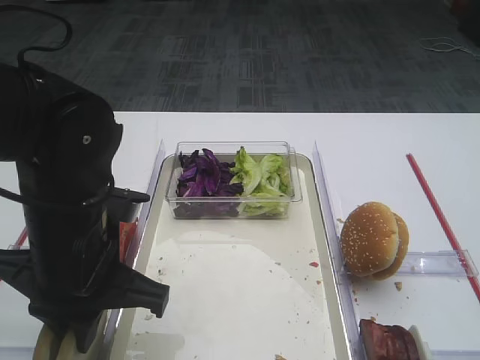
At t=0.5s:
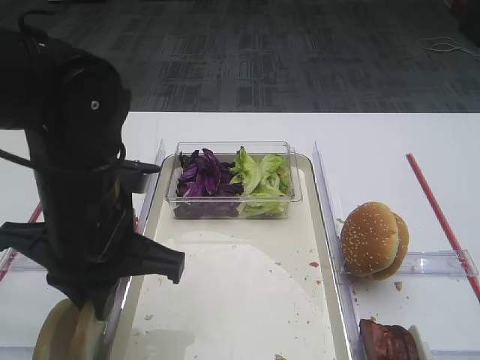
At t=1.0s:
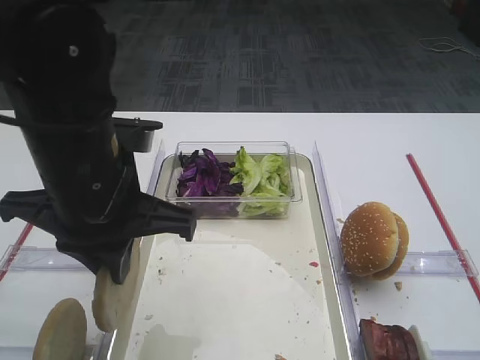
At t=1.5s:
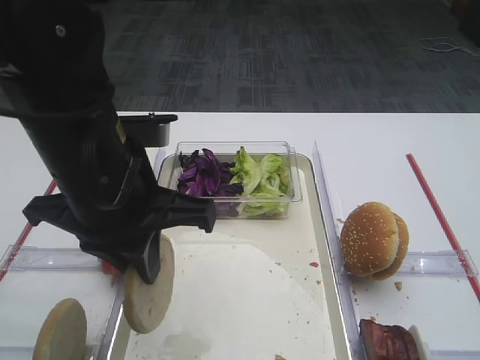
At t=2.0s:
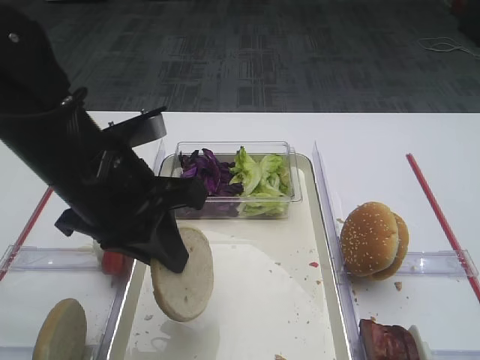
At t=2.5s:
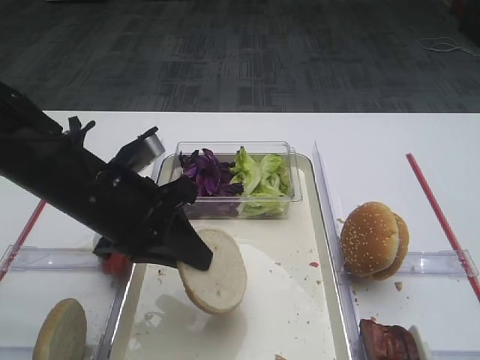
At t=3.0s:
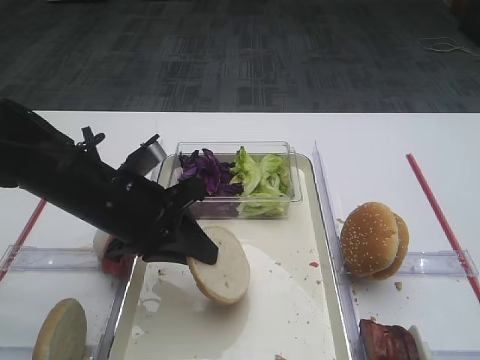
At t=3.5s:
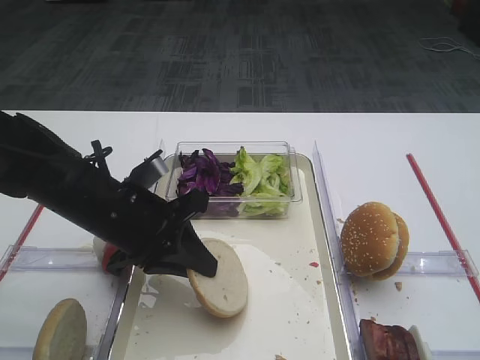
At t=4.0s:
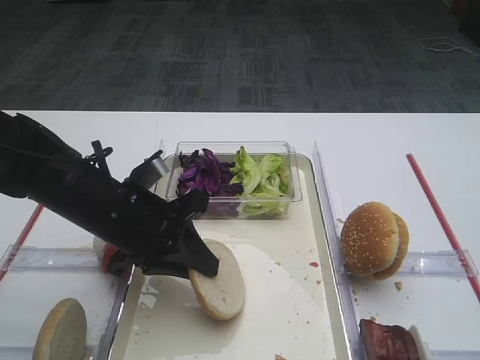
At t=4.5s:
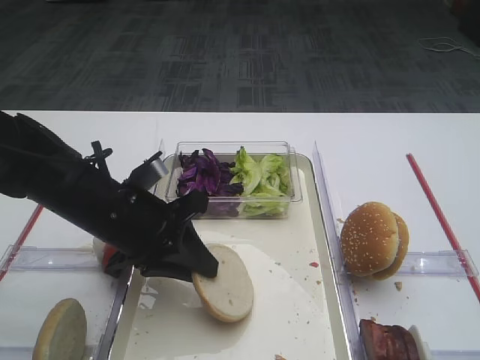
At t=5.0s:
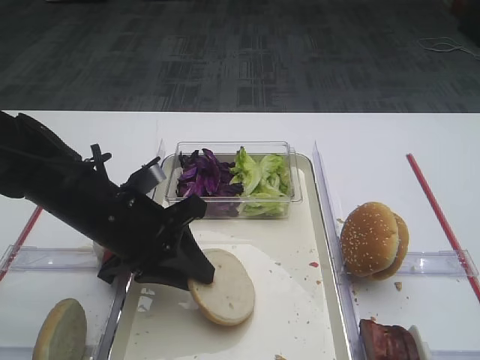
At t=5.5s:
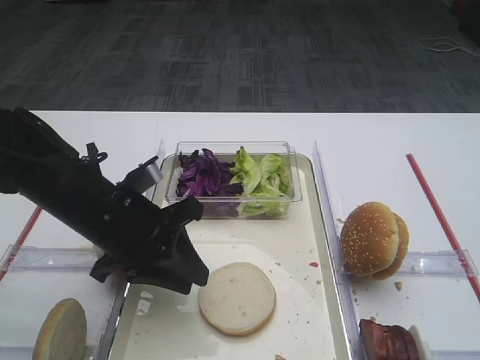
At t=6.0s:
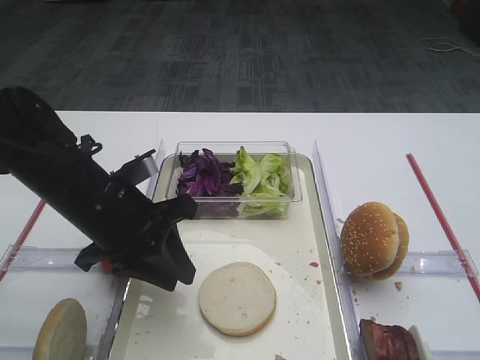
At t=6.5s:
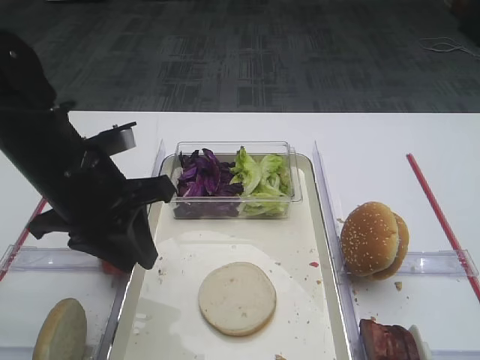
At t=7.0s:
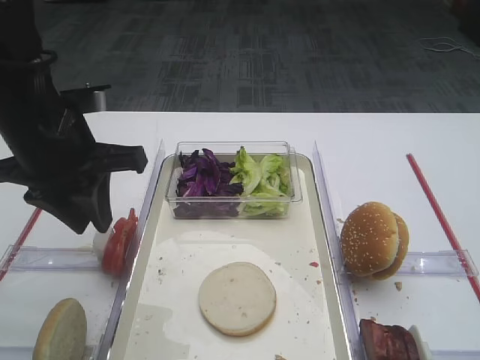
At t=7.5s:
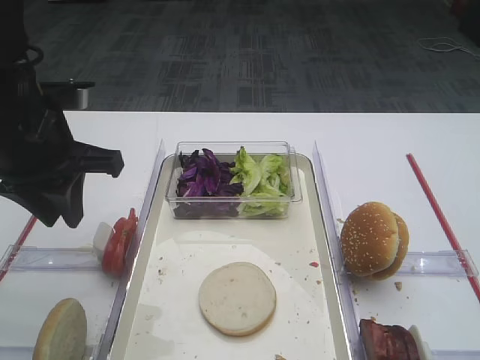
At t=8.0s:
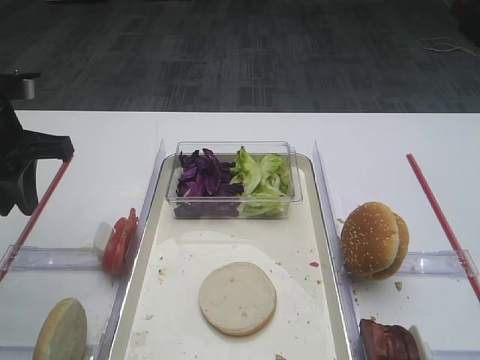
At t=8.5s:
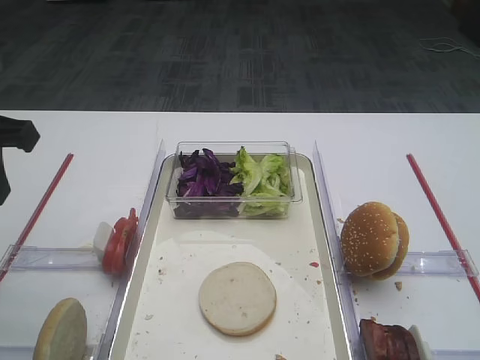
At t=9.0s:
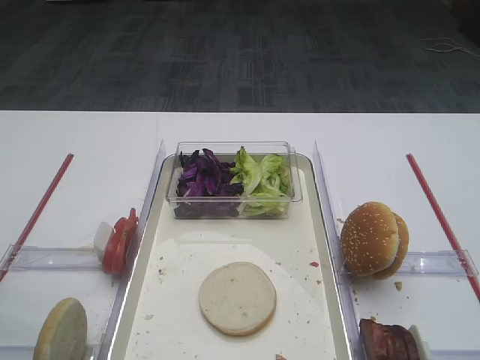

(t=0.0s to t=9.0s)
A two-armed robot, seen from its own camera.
Step, t=1.5s - t=6.0s: Place the bread slice on the tray with the left gripper.
t=0.0s - t=2.0s: The left gripper moves some 5 cm.
t=2.0s - t=4.5s: The left gripper heads downward, covering approximately 10 cm.
t=4.5s - t=7.0s: The left gripper goes some 10 cm upward and to the left.
t=7.0s - t=9.0s: The left gripper heads backward, to the left and upward, covering approximately 15 cm.
